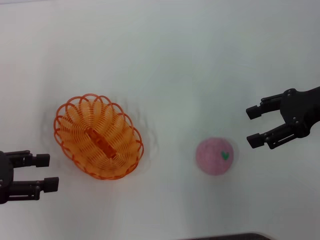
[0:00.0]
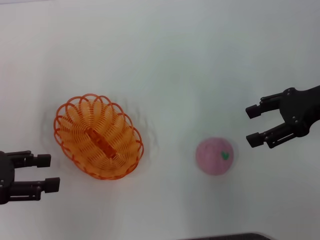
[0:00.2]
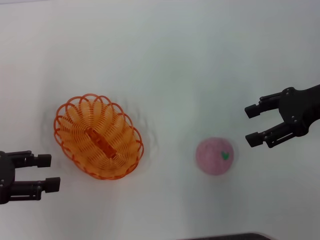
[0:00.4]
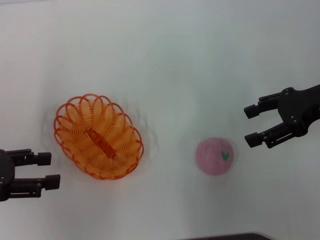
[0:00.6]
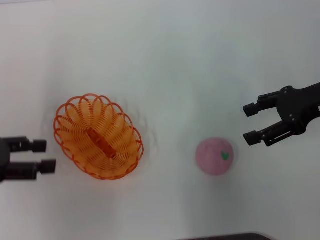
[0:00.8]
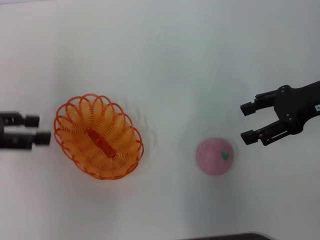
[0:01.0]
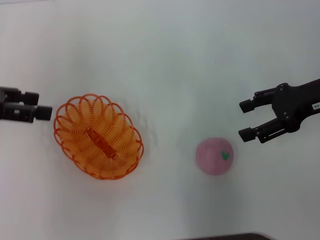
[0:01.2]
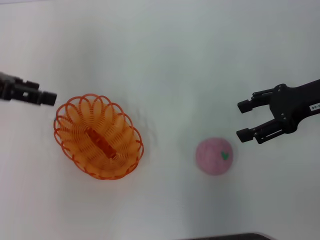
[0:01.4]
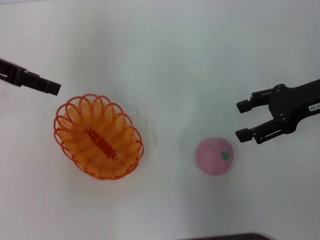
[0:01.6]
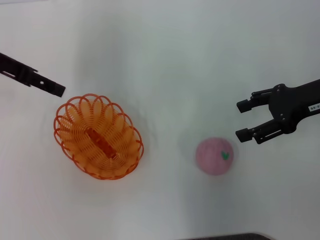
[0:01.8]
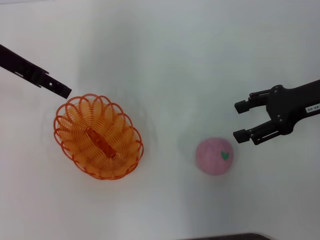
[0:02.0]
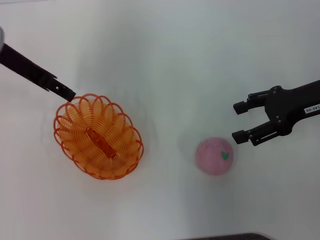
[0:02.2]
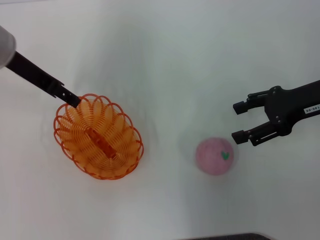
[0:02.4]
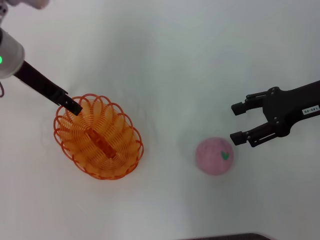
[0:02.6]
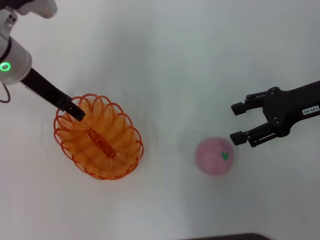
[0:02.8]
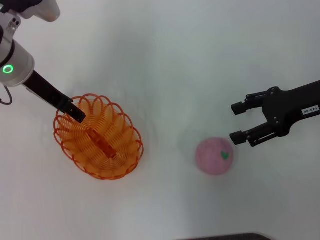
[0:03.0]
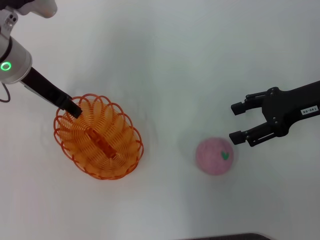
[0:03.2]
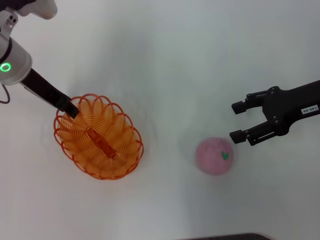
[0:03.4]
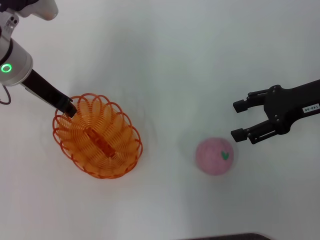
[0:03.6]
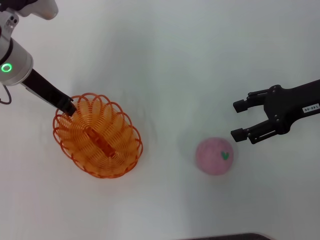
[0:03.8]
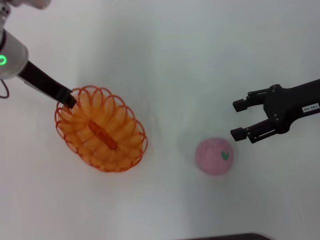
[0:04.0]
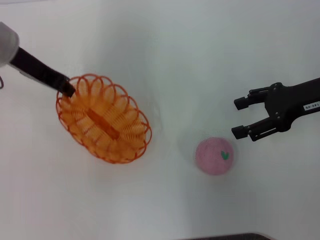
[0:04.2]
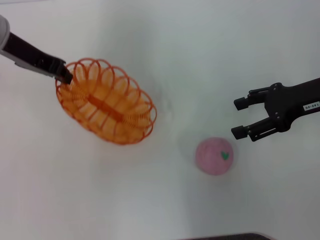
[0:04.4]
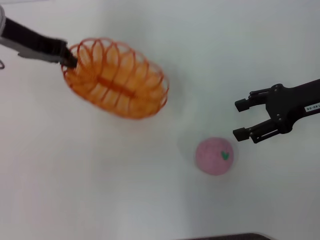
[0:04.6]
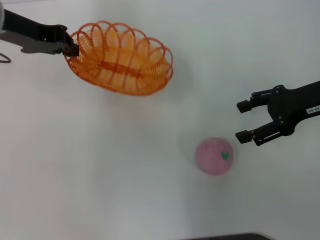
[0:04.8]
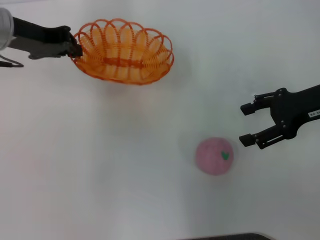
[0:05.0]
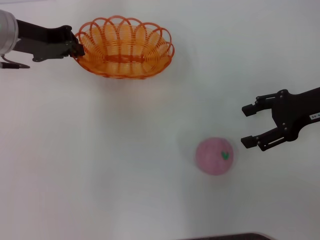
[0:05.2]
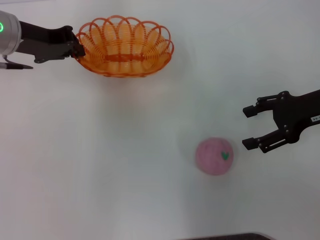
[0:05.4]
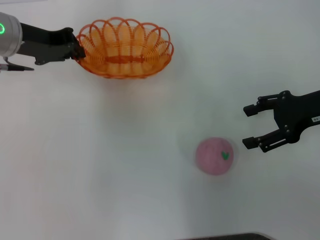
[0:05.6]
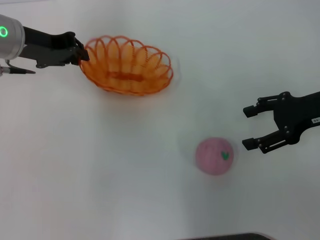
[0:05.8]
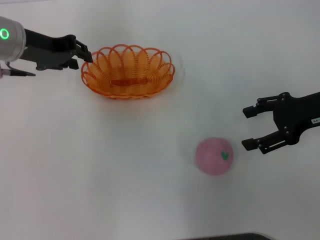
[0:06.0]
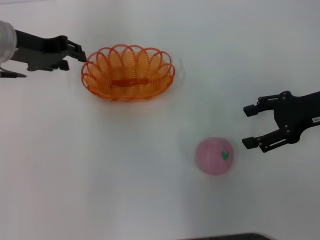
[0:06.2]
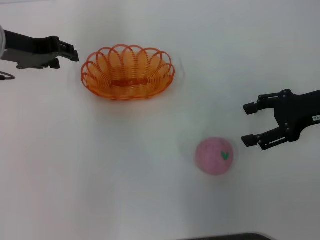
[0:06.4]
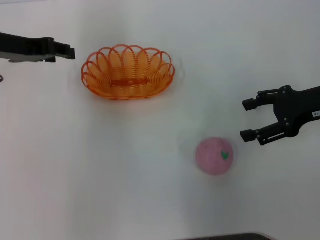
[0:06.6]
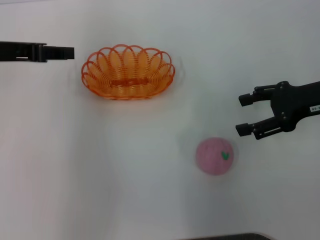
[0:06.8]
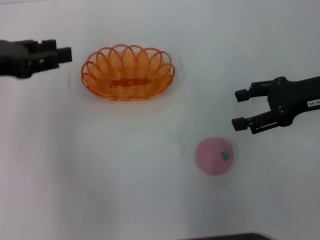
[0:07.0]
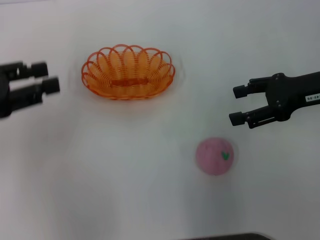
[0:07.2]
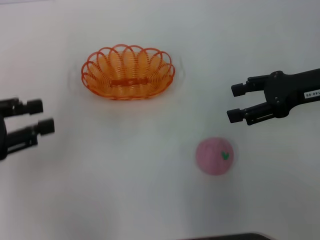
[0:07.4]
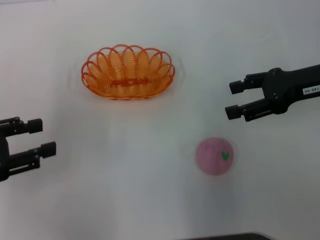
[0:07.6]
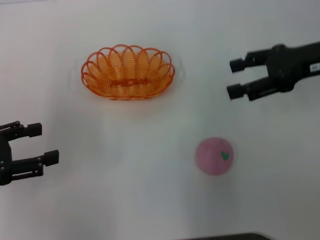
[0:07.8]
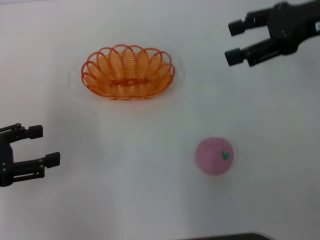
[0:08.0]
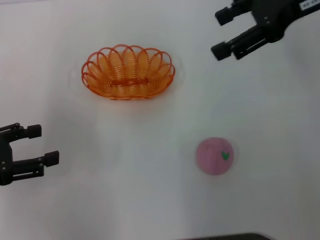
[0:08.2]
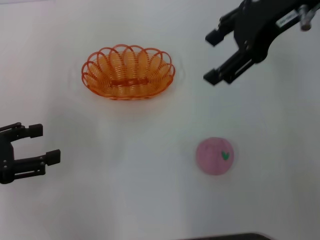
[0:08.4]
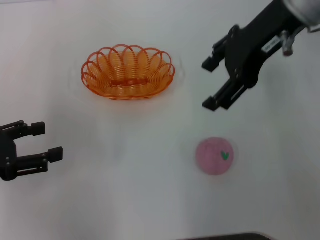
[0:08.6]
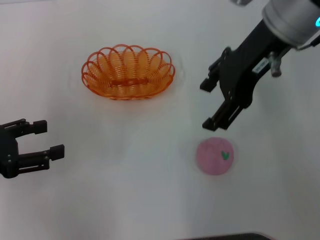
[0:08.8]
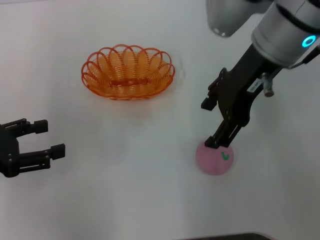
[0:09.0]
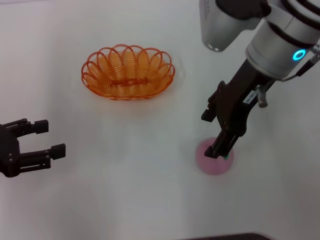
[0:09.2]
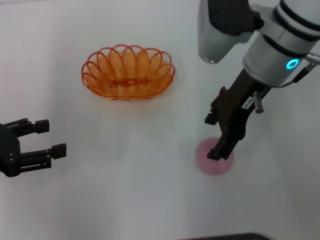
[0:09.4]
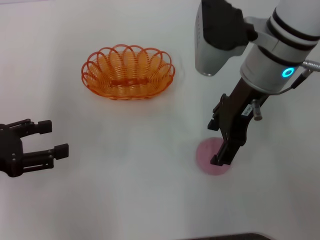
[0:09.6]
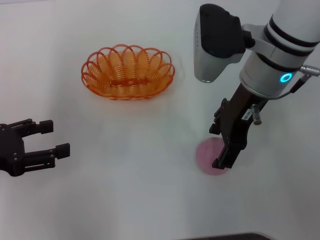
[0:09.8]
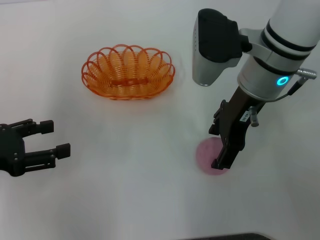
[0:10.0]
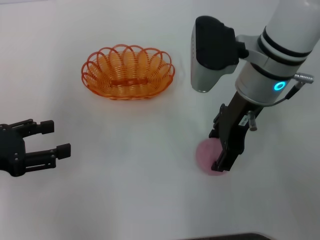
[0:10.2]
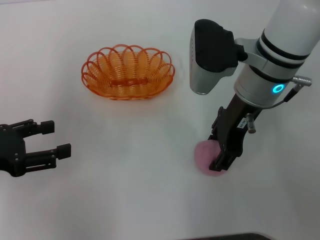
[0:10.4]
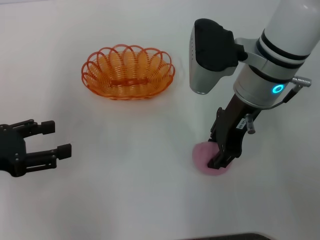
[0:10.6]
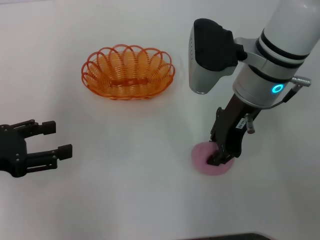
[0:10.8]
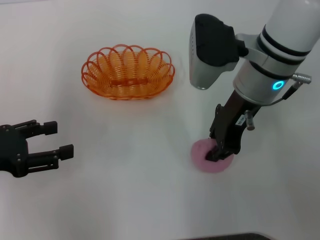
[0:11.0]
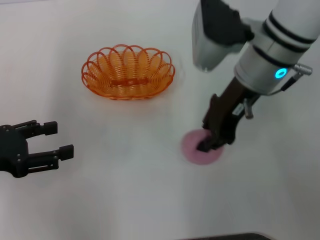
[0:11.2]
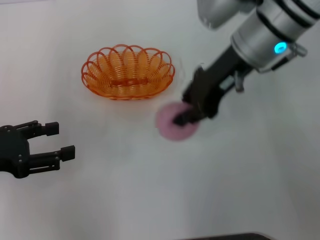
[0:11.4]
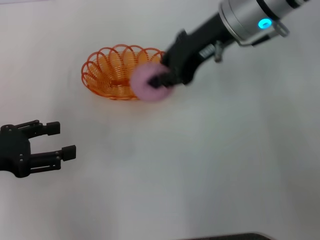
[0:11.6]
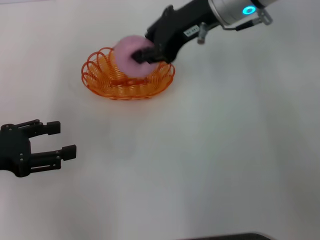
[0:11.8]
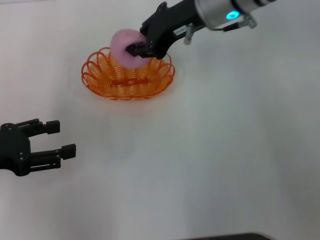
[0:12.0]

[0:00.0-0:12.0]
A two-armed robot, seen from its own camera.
Step, 0:00.0 to 0:04.0: Pick up the basket with the left gripper.
Step, 0:04.4 to 0:06.6: Place the basket in the center of view with the left gripper.
Step, 0:06.8 to 0:11.2: Pick up the peach with the right gripper.
0:00.0 to 0:01.6: The left gripper moves forward and upward, about 15 cm.
0:01.6 to 0:03.0: The left gripper travels to the right and downward by roughly 10 cm.
0:03.0 to 0:04.4: The left gripper goes some 5 cm upward, and closes.
0:06.0 to 0:07.6: The left gripper moves backward and to the left, some 20 cm, and opens its fingers.
0:07.6 to 0:09.0: The right gripper goes some 20 cm to the left and upward.
0:09.0 to 0:10.4: The right gripper is displaced downward by roughly 10 cm.
0:10.4 to 0:12.0: The right gripper travels forward by approximately 5 cm, and closes its fingers.

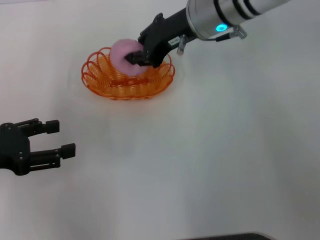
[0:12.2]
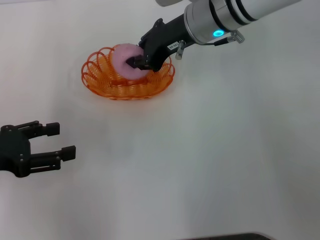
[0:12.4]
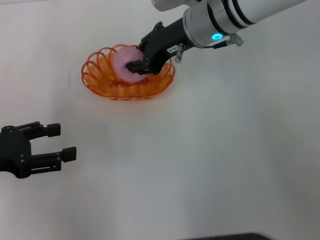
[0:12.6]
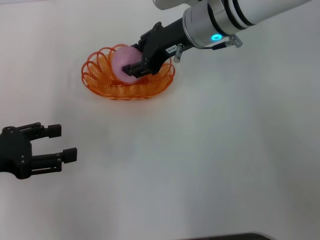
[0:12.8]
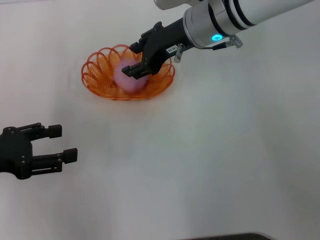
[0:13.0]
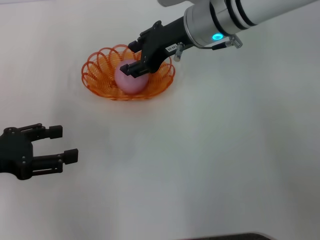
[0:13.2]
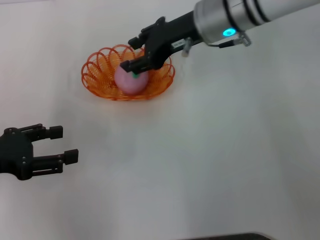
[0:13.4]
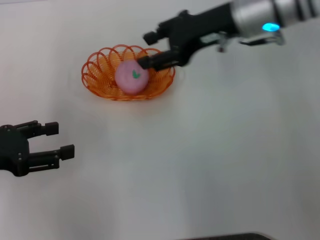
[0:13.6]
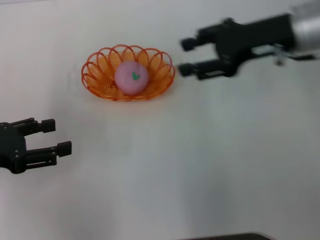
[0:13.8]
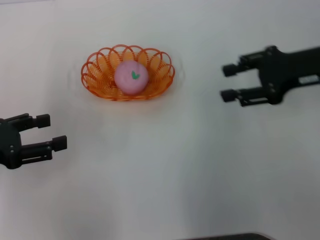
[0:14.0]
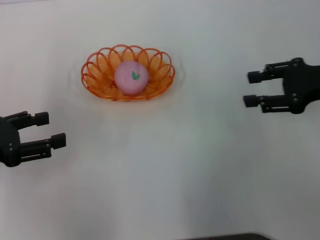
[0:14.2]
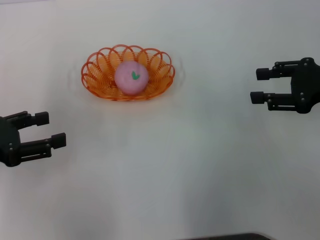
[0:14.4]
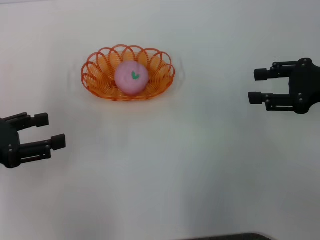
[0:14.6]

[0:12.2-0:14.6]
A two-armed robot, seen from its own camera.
Step, 0:12.2 to 0:13.6: Place the peach into the basket with the right gripper.
0:12.2 to 0:13.4: The right gripper opens up.
0:13.4 to 0:14.6: The right gripper moves to the right and backward, roughly 25 cm.
